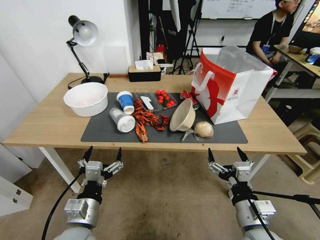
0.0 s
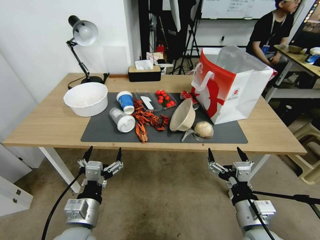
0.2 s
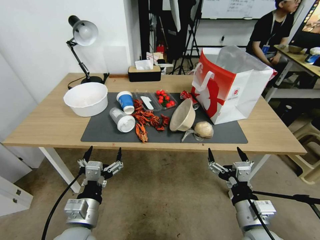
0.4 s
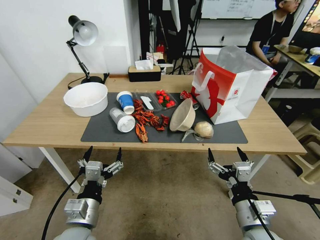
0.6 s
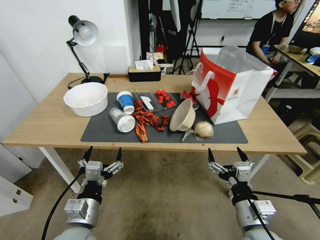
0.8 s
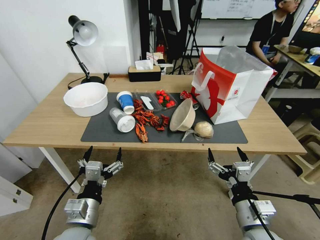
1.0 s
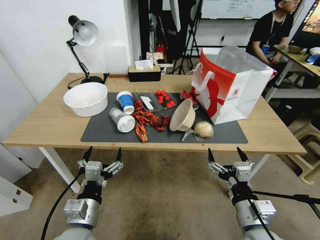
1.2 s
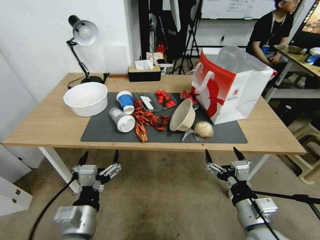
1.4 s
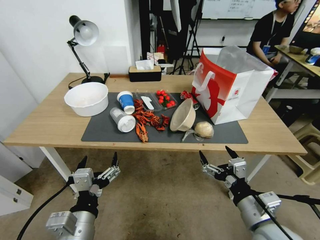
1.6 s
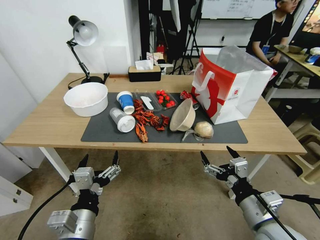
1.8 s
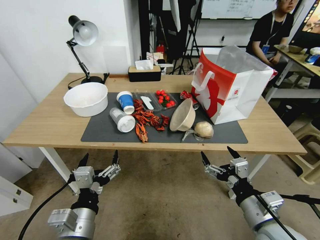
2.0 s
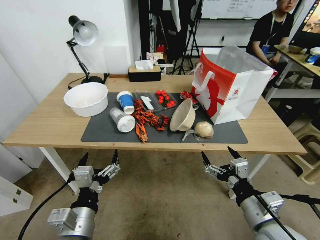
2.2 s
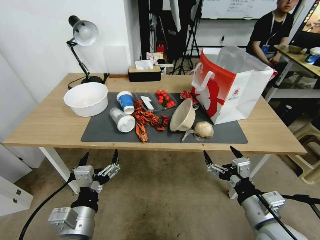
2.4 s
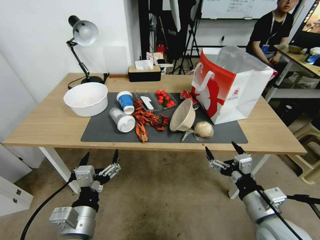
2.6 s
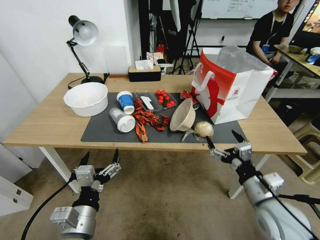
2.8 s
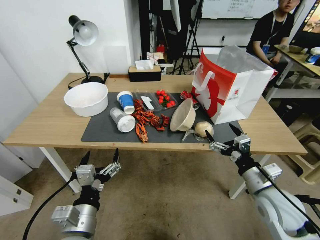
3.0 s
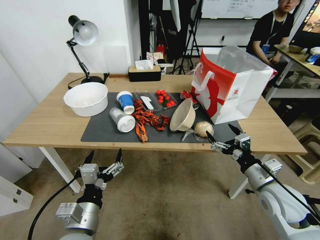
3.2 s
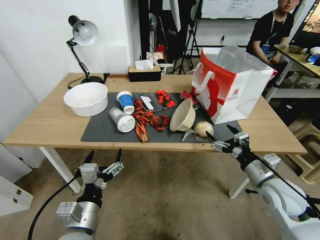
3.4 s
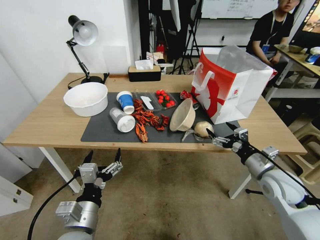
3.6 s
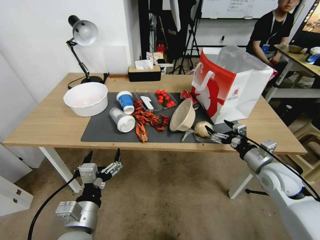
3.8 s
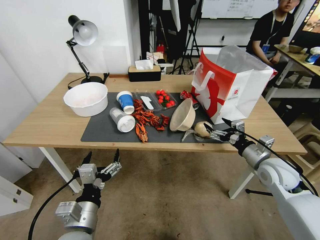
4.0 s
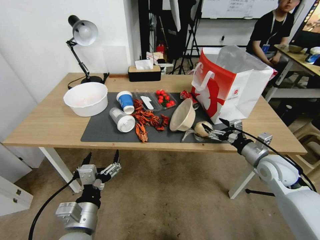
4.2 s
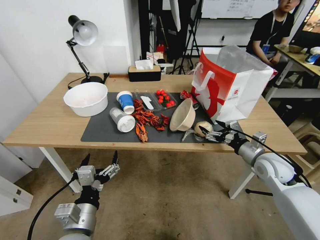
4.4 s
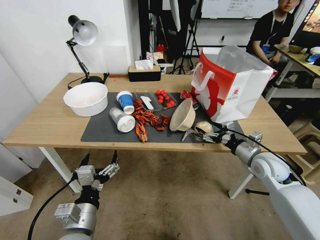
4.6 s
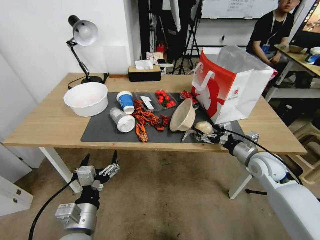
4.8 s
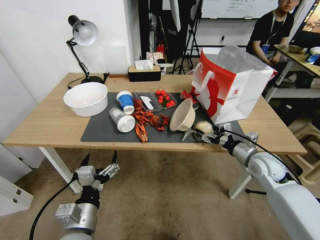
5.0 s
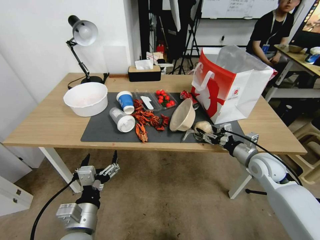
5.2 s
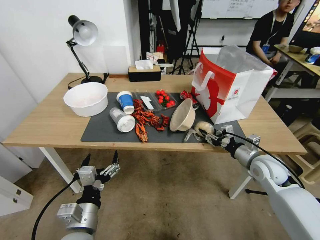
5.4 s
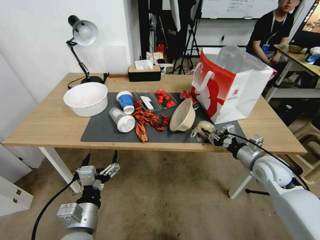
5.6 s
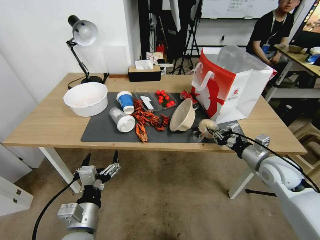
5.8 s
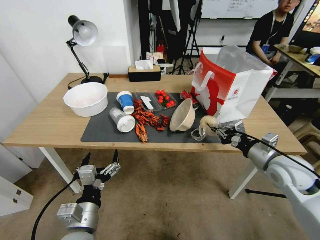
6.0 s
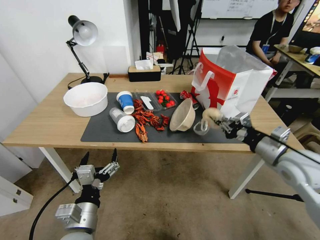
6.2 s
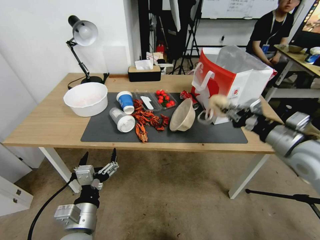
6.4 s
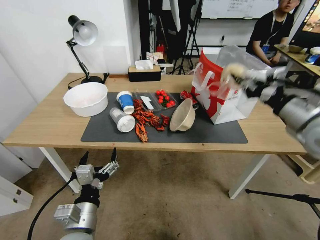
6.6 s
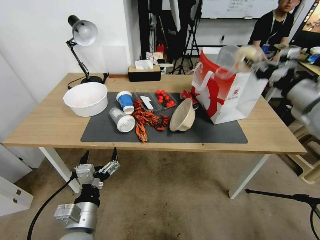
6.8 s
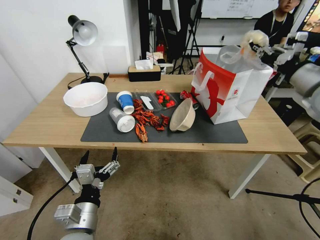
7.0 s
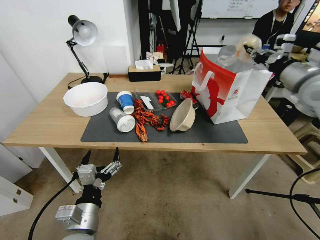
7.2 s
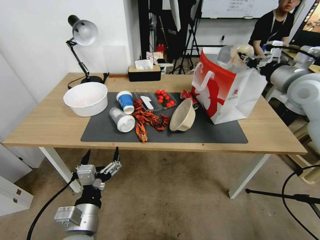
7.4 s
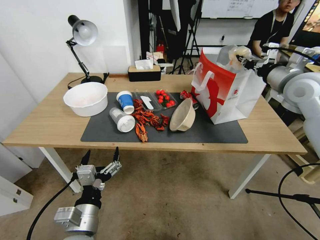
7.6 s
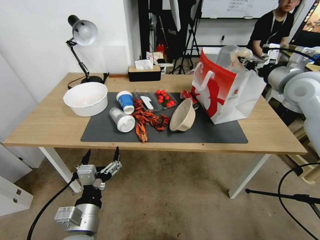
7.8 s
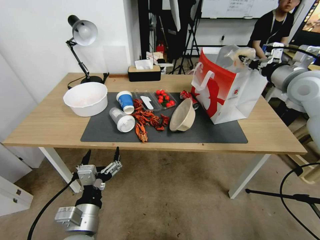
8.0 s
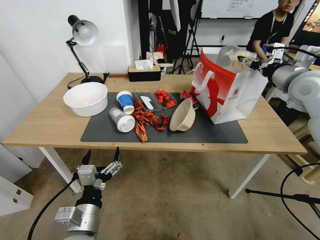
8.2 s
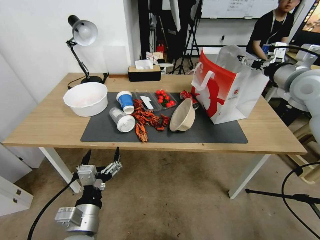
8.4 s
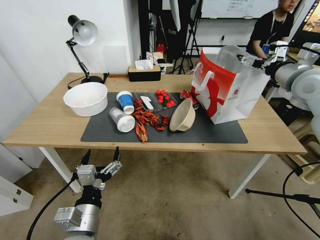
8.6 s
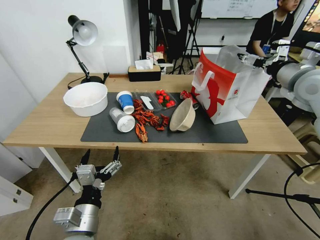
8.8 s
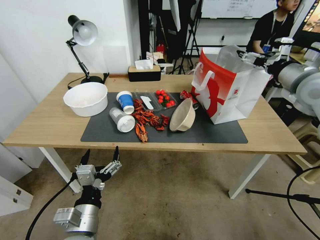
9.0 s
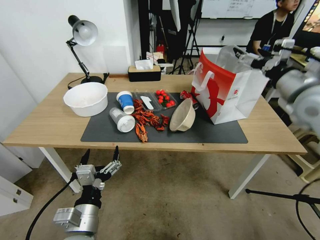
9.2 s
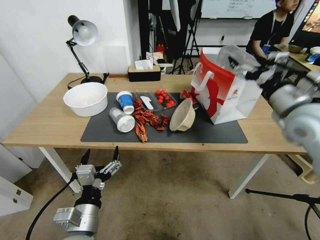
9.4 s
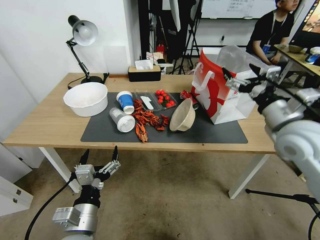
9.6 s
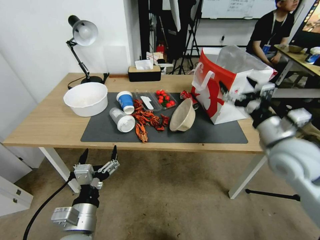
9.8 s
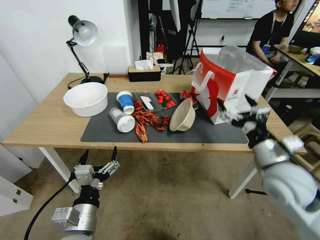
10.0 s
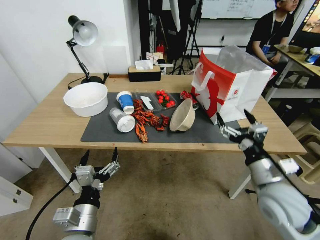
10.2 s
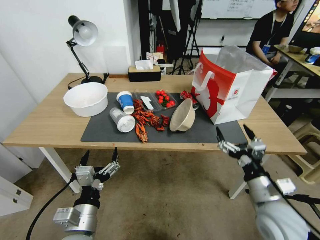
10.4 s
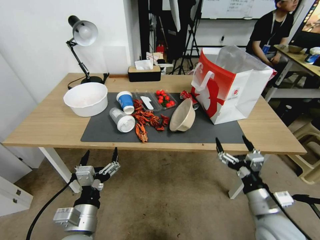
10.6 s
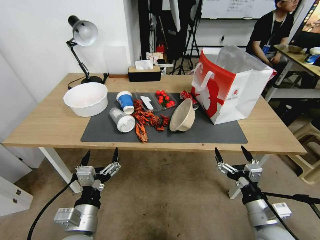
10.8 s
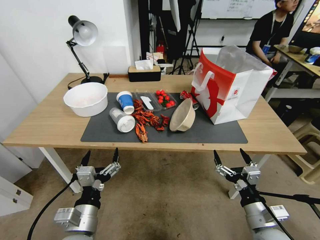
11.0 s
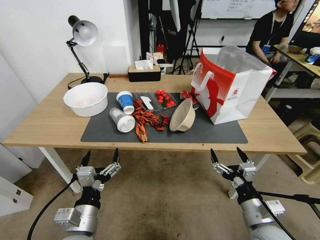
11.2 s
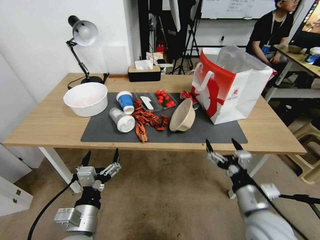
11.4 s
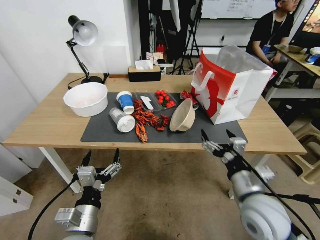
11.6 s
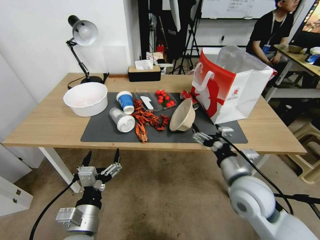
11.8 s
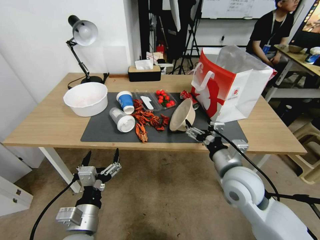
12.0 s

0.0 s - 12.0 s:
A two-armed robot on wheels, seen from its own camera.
1.6 s - 3.0 s: The right gripper goes roughly 10 cm forward and to the right.
3.0 s - 4.4 s: The right gripper shifts about 10 cm forward.
4.4 s - 6.0 s: The right gripper shifts approximately 5 cm upward, and closes up.
6.0 s - 7.6 s: The right gripper goes about 25 cm upward and forward.
7.6 s - 9.0 s: The right gripper opens its fingers.
9.0 s - 10.4 s: The right gripper is displaced downward and backward by approximately 35 cm.
10.4 s - 12.0 s: The right gripper travels to the left and forward by about 10 cm.

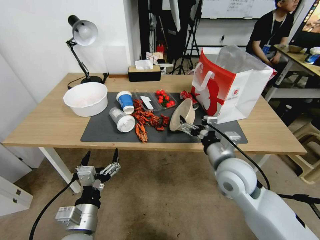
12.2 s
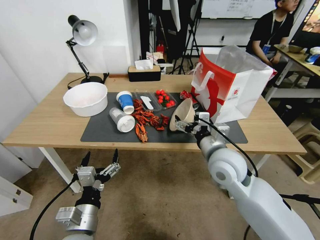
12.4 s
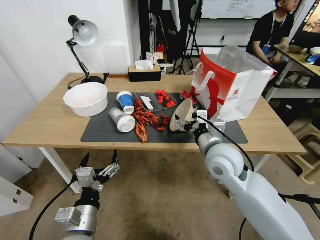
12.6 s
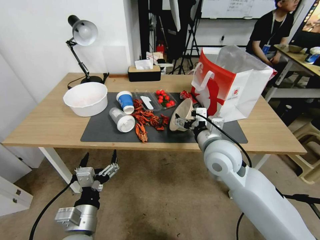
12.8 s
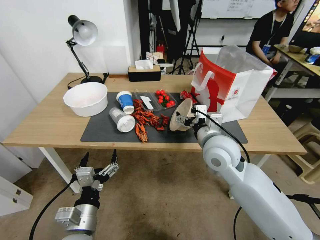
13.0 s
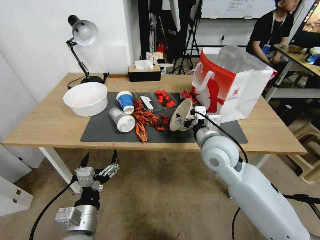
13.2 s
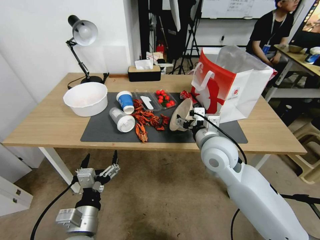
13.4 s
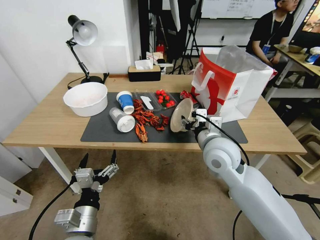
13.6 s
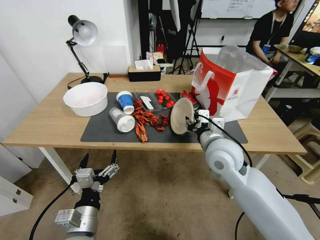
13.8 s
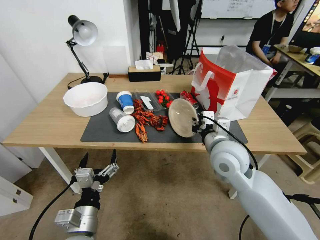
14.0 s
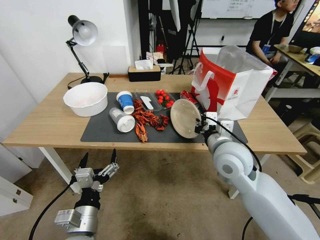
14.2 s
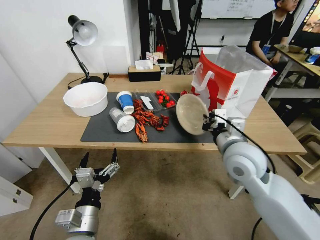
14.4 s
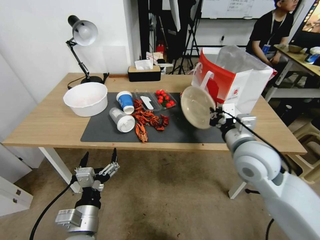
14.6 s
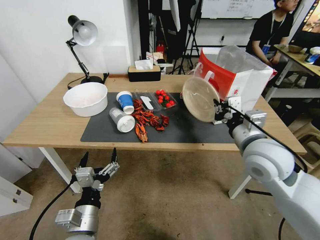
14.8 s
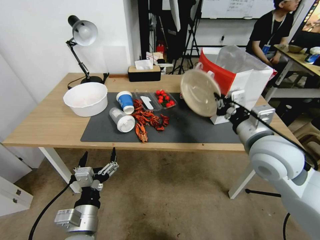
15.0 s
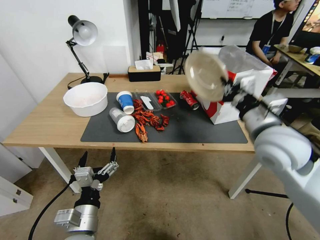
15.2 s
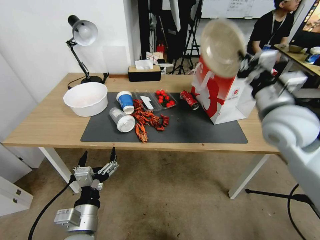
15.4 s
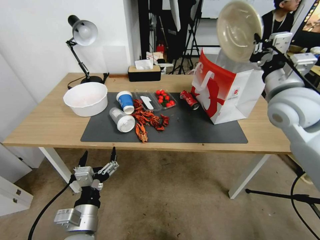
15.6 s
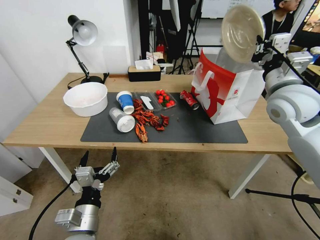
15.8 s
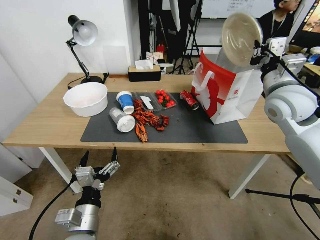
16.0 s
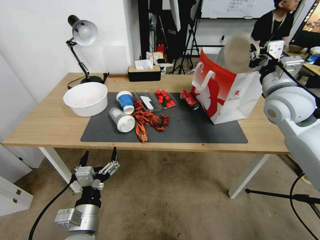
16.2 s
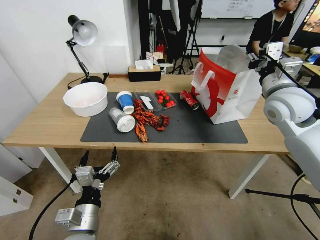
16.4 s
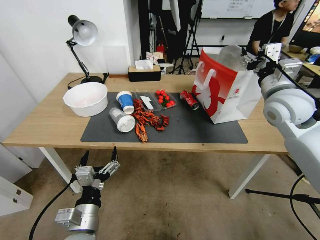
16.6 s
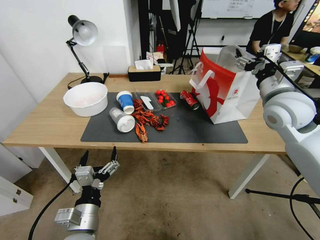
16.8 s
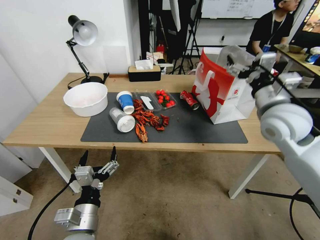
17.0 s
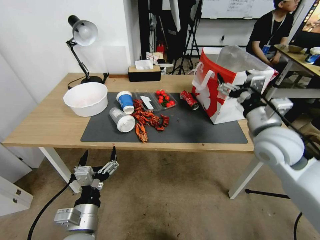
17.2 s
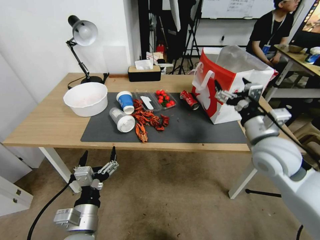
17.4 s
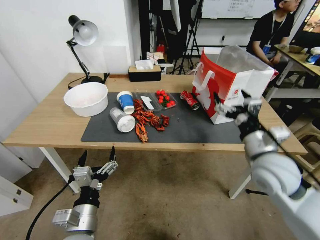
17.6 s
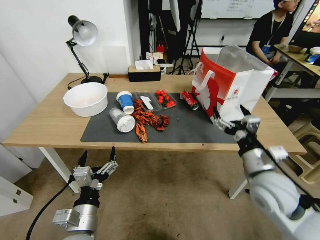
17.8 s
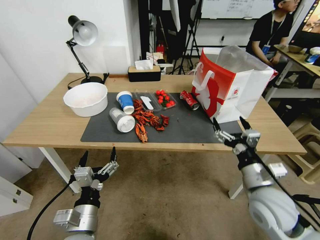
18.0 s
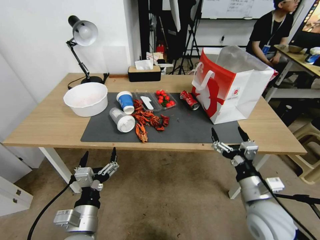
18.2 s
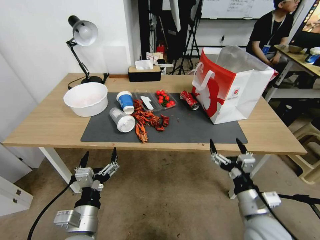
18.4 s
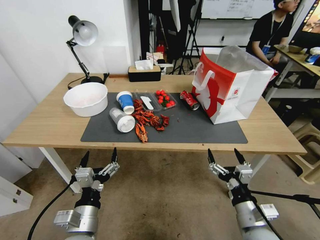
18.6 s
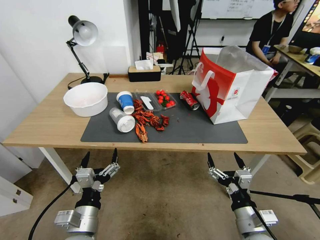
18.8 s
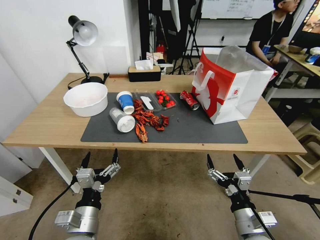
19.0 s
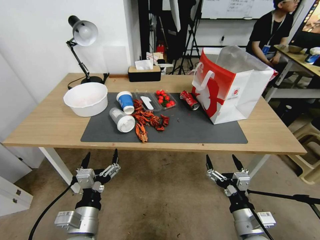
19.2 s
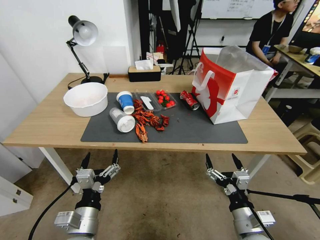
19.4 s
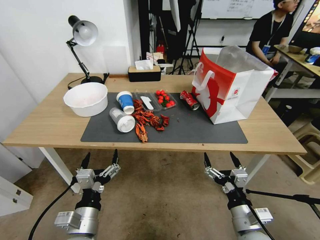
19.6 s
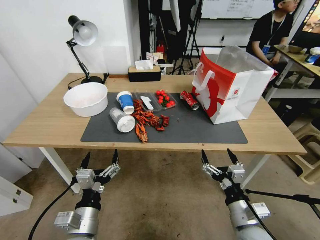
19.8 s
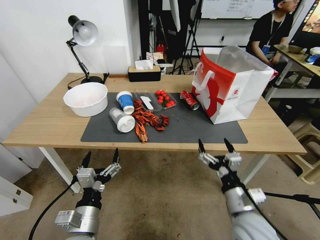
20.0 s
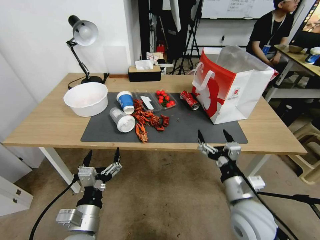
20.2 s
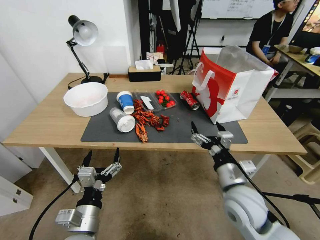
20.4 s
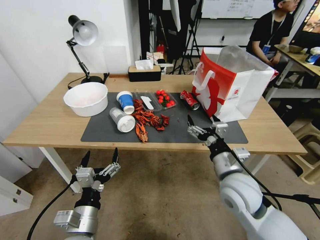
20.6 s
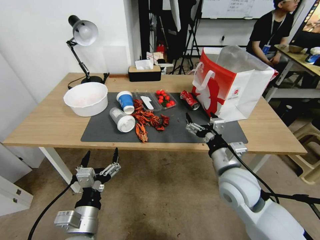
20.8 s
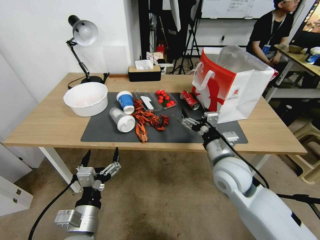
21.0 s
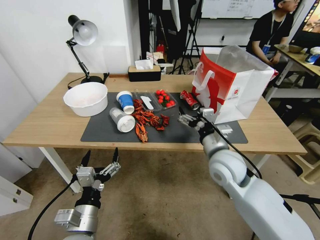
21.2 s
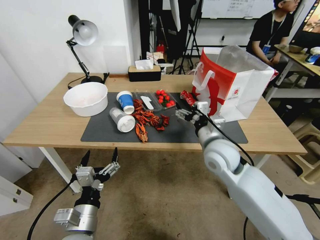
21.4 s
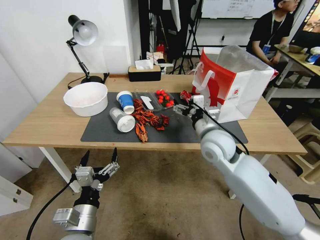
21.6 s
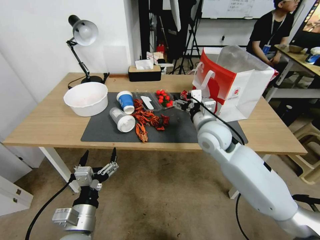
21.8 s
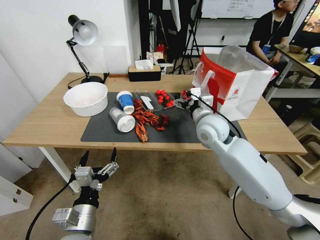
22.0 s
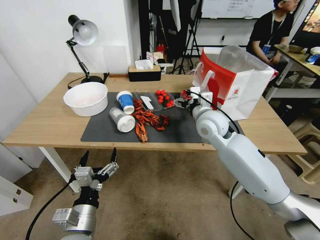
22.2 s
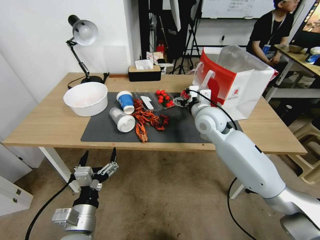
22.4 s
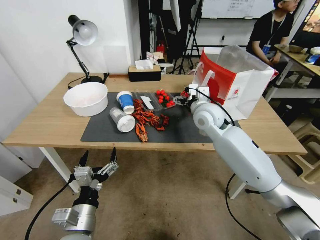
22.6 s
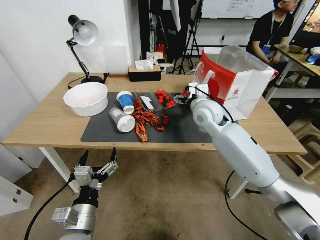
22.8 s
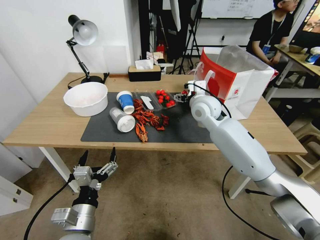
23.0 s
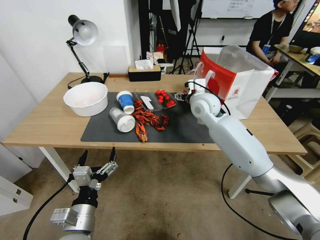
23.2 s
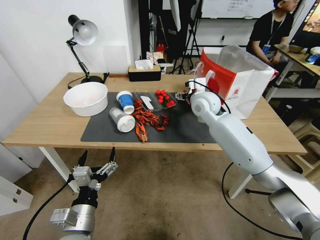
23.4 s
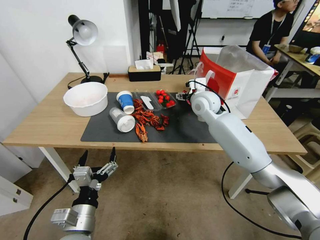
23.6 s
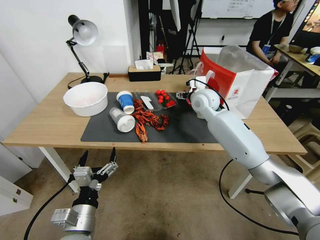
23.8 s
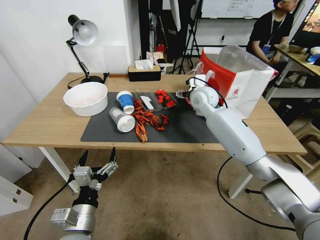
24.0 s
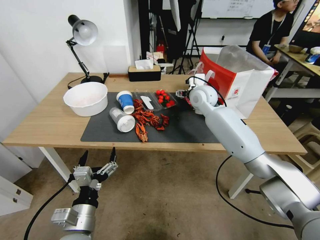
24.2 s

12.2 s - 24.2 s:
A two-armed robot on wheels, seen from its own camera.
12.2 s - 13.8 s: The right gripper ends up roughly 5 cm from where it was, and closes its fingers.
13.8 s - 15.2 s: The right gripper heads to the right and upward, covering roughly 10 cm, and closes its fingers.
15.2 s - 16.6 s: The right gripper travels forward and to the right by about 15 cm, and opens its fingers.
16.6 s - 18.2 s: The right gripper shifts about 30 cm downward and backward.
18.2 s - 19.8 s: The right gripper heads backward and downward, covering some 10 cm.
19.8 s - 21.2 s: The right gripper is displaced forward and upward by roughly 20 cm.
21.2 s - 22.6 s: The right gripper shifts roughly 15 cm forward.
22.6 s - 24.2 s: The right gripper heads forward, covering about 10 cm.
